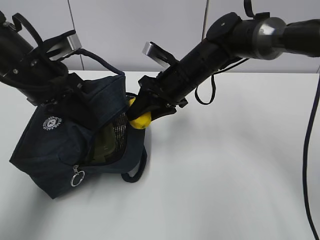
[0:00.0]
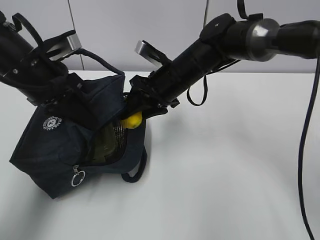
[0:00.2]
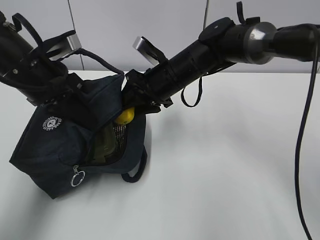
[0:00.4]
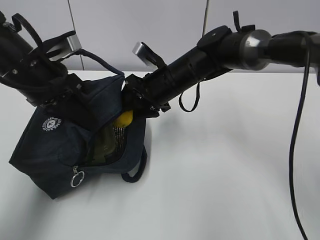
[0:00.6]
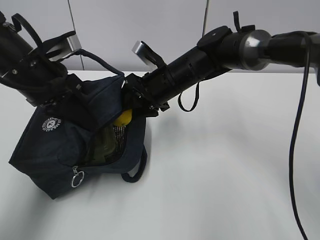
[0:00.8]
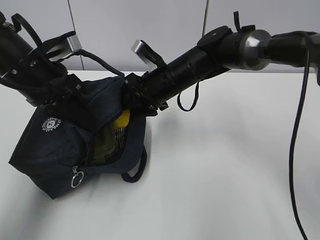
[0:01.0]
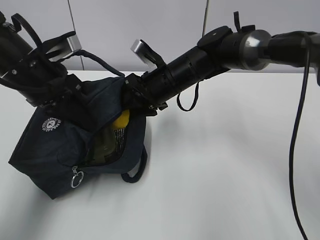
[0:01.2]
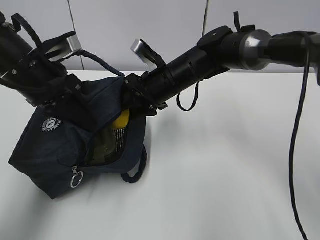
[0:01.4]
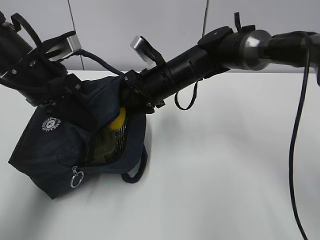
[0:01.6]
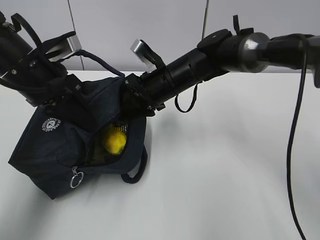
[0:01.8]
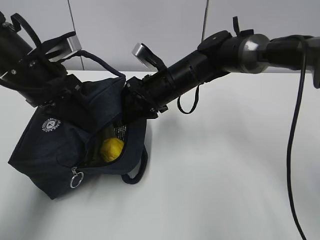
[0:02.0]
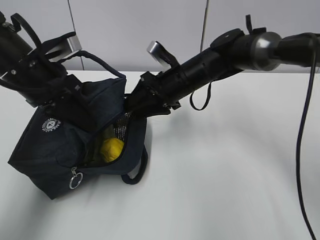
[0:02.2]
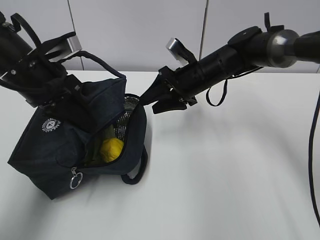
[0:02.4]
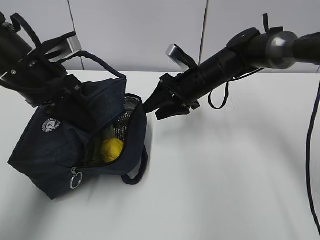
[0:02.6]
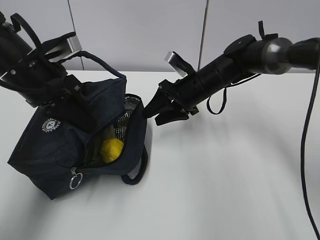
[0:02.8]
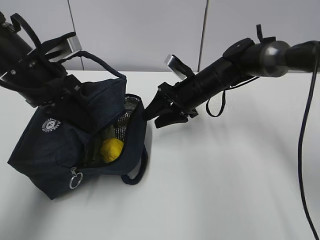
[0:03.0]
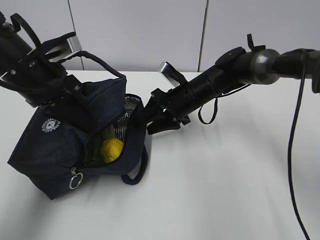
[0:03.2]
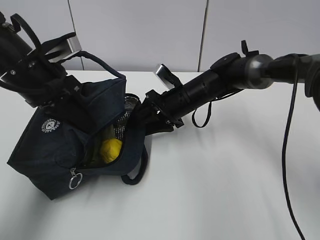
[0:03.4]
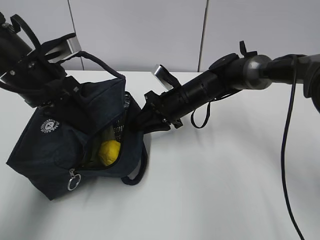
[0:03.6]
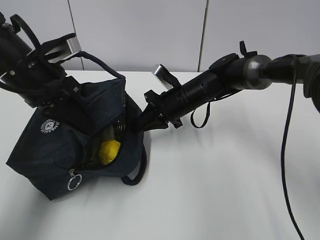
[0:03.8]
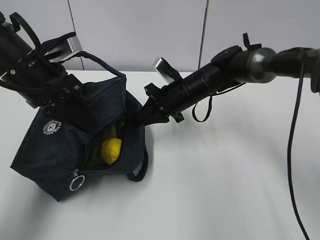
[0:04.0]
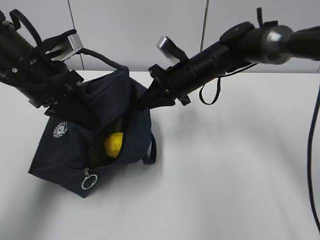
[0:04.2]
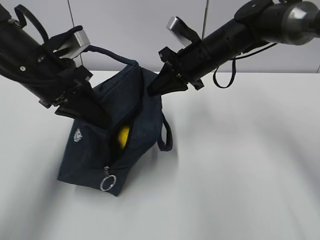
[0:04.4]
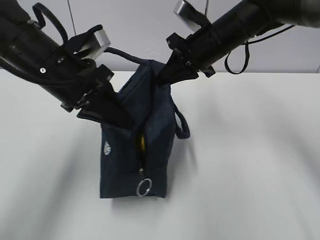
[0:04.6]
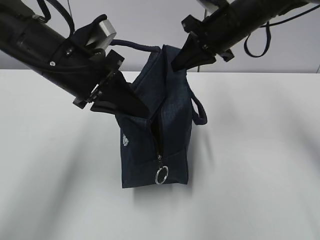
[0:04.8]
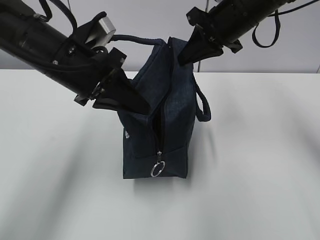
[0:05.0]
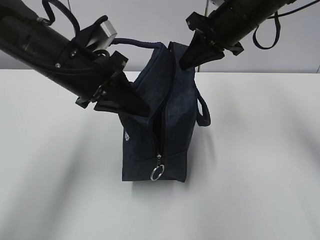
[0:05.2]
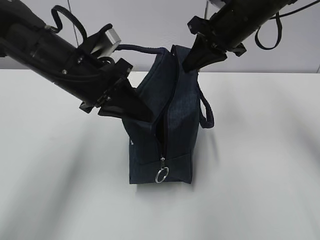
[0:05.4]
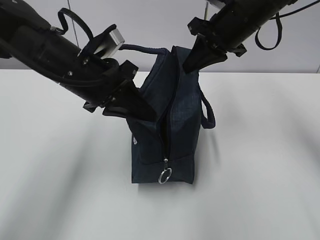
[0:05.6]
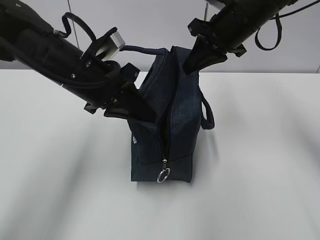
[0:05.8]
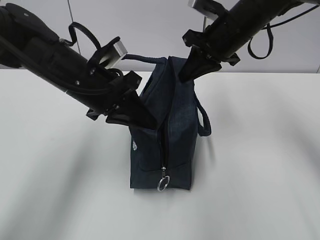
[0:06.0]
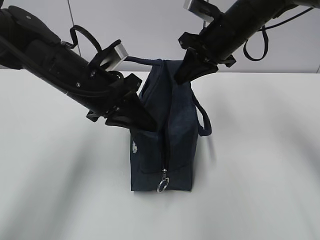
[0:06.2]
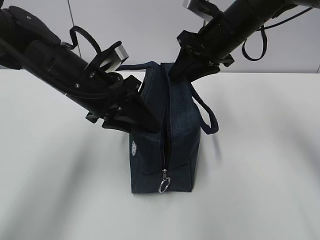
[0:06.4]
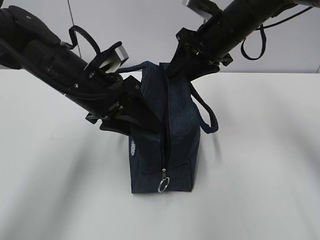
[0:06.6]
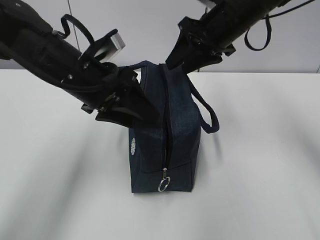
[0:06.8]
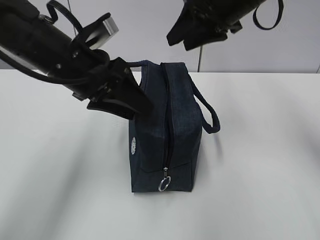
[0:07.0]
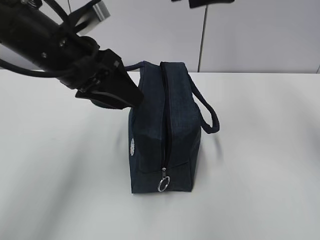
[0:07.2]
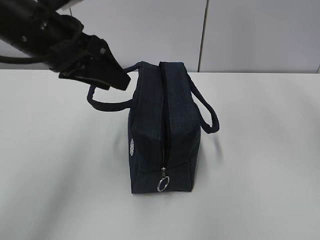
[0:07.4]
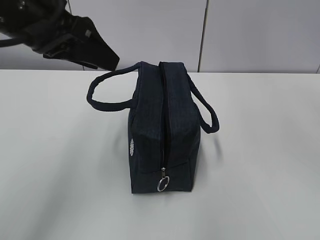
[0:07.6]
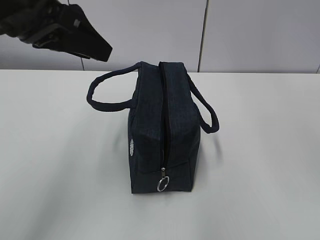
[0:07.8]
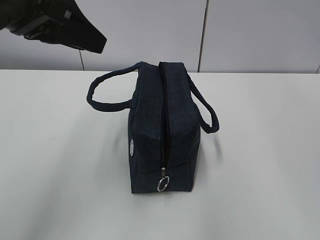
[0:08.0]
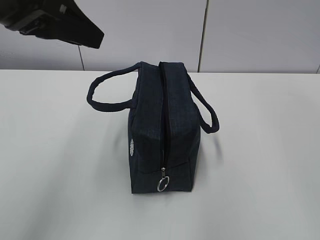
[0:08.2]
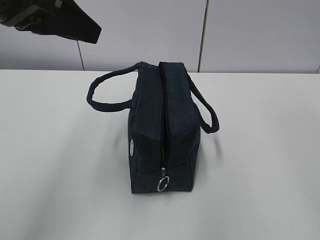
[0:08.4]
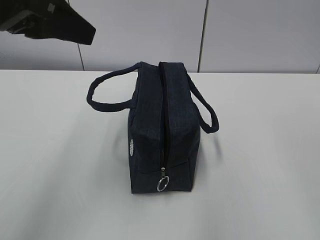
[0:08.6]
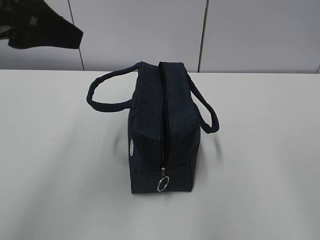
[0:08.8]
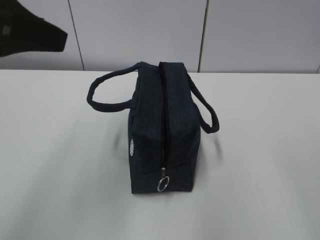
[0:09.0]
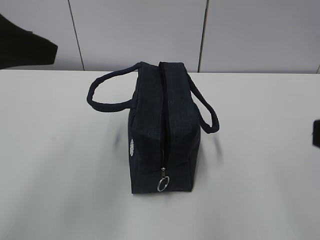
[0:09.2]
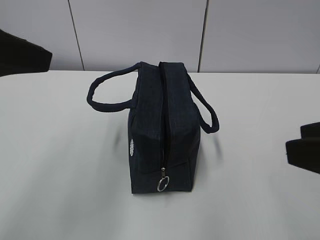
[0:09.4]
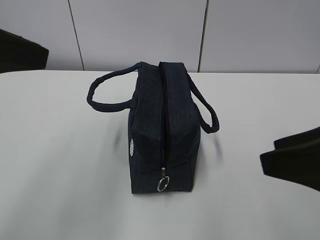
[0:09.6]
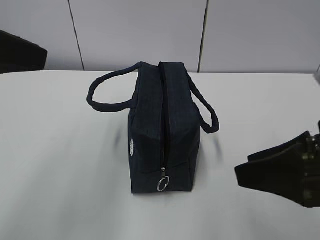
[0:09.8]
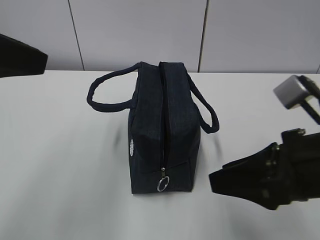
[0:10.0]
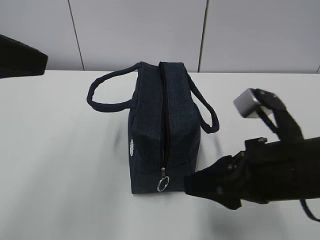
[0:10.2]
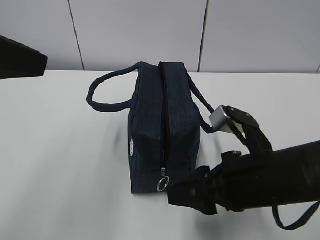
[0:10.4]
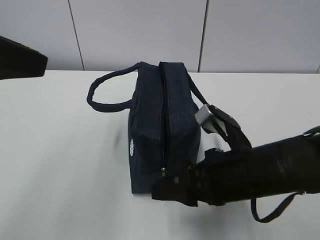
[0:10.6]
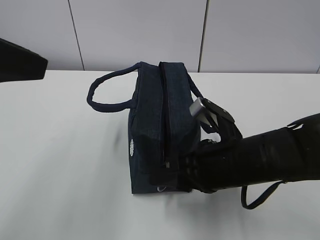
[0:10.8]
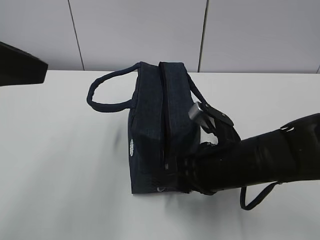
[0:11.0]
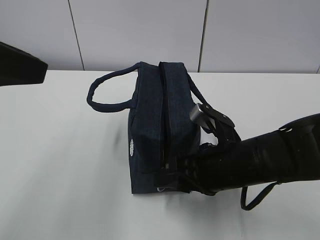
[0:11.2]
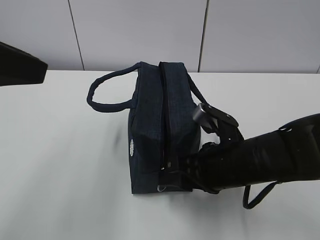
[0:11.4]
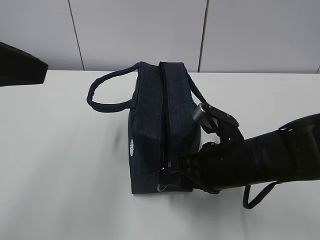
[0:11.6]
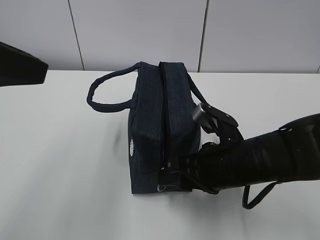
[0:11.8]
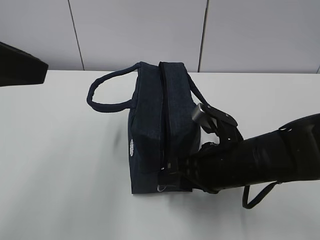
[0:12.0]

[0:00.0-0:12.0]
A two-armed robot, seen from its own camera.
Step, 0:00.0 to 0:02.2: Place the lemon into the package with the right gripper.
0:00.0 to 0:01.6: The grippers make only small movements.
0:01.6 to 0:03.0: The right gripper shifts approximately 5 cm to the right.
0:03.0 to 0:04.4: The right gripper goes approximately 10 cm upward, and closes up.
0:04.4 to 0:06.0: The left gripper goes approximately 5 cm to the right. The right gripper changes place by approximately 5 cm.
0:06.0 to 0:07.6: The right gripper shifts approximately 25 cm upward and backward, and opens its fingers. Meanwhile the left gripper heads upward, covering roughly 10 cm, and opens its fingers.
0:07.6 to 0:09.0: The right gripper heads backward and downward, covering some 30 cm, while the left gripper travels backward by roughly 10 cm.
0:09.0 to 0:10.4: The right gripper heads downward, forward and to the left, covering approximately 25 cm.
0:10.4 to 0:12.0: The right gripper ends up some 5 cm from where it was.

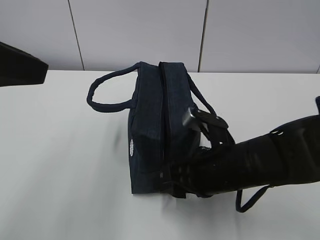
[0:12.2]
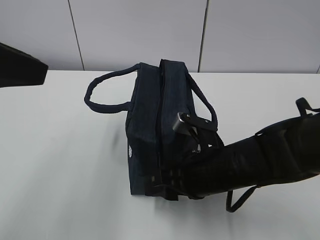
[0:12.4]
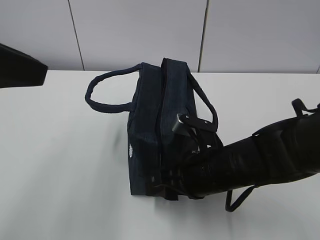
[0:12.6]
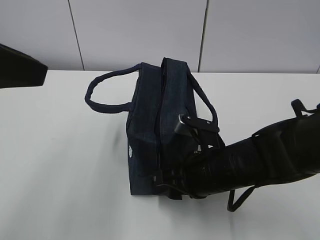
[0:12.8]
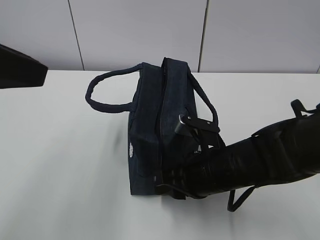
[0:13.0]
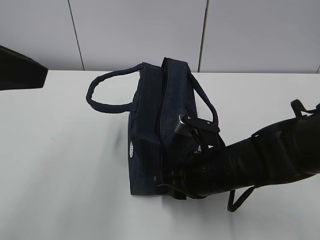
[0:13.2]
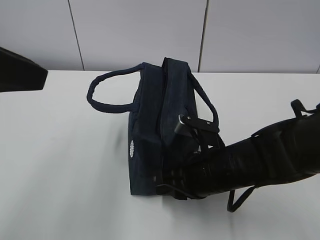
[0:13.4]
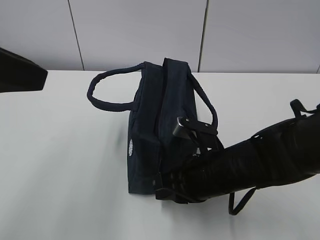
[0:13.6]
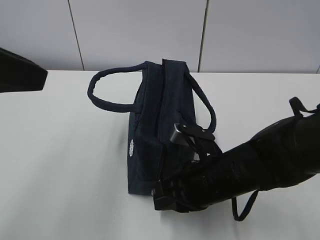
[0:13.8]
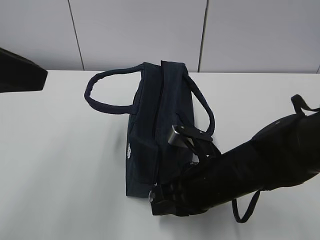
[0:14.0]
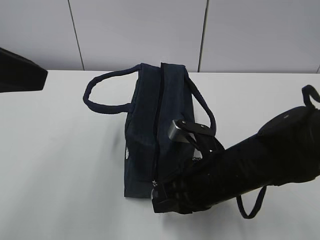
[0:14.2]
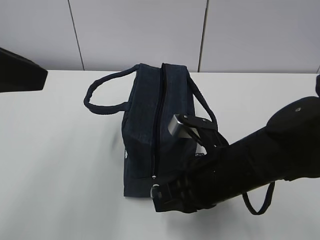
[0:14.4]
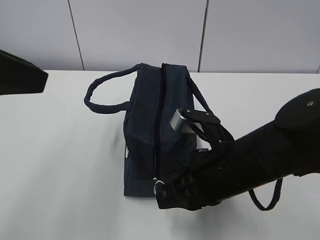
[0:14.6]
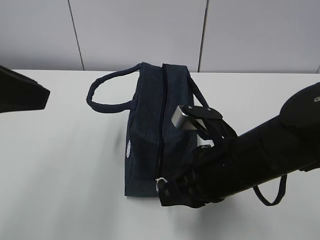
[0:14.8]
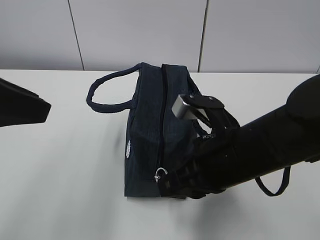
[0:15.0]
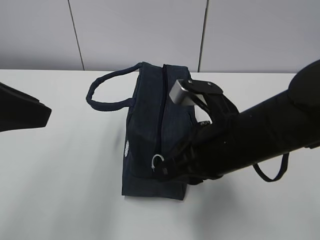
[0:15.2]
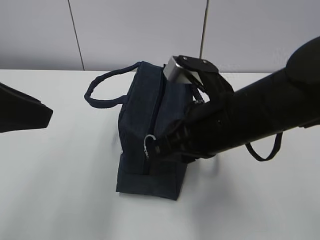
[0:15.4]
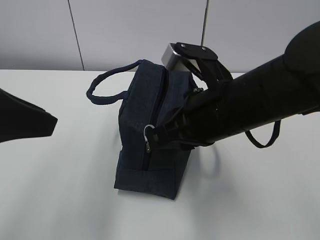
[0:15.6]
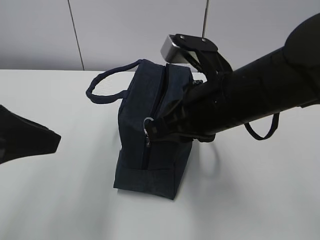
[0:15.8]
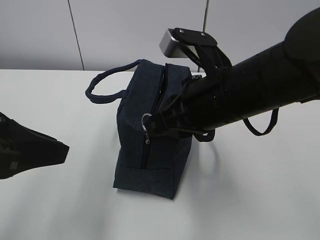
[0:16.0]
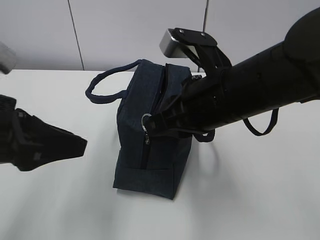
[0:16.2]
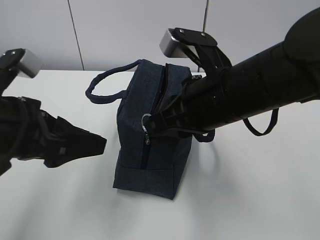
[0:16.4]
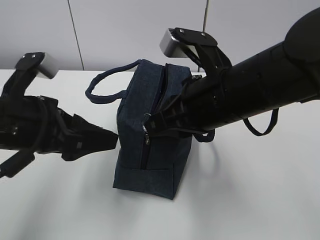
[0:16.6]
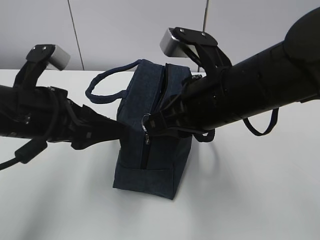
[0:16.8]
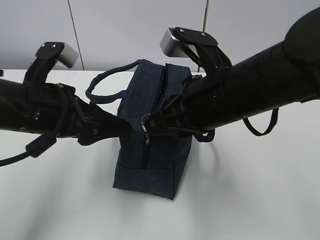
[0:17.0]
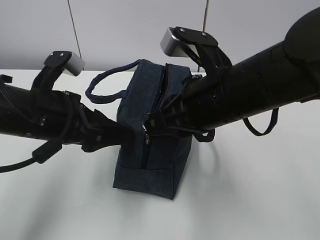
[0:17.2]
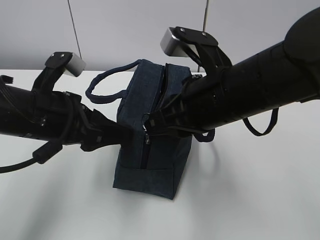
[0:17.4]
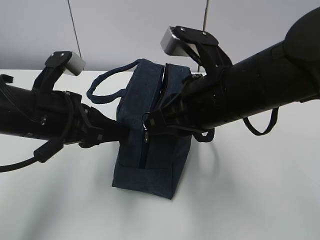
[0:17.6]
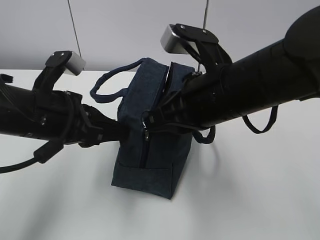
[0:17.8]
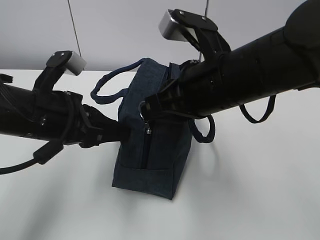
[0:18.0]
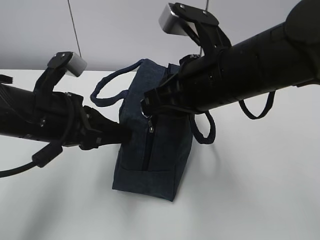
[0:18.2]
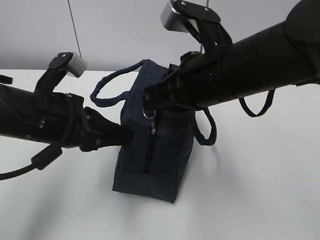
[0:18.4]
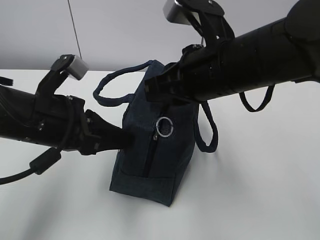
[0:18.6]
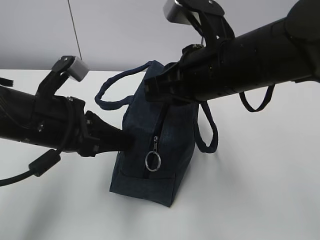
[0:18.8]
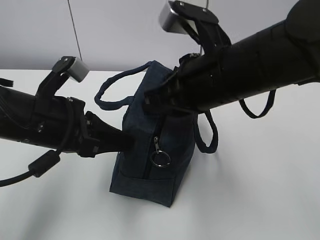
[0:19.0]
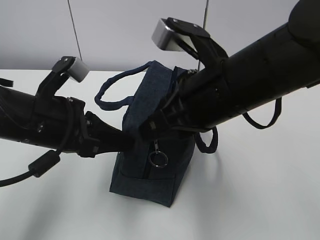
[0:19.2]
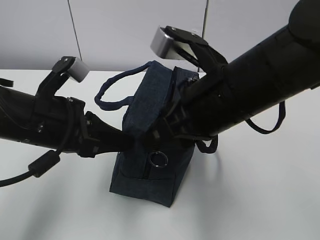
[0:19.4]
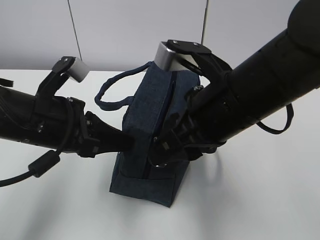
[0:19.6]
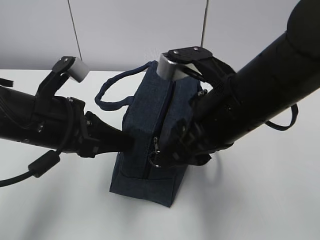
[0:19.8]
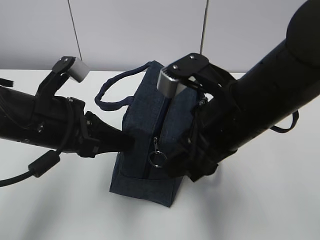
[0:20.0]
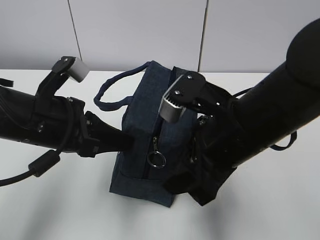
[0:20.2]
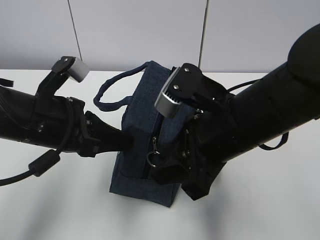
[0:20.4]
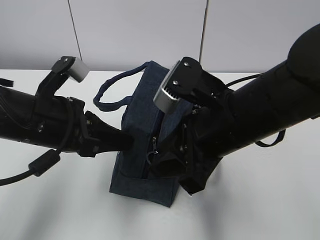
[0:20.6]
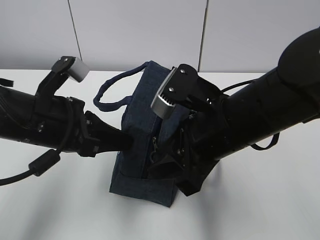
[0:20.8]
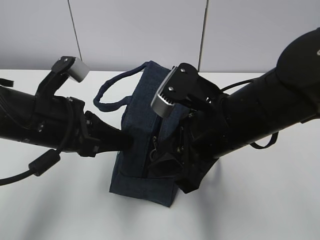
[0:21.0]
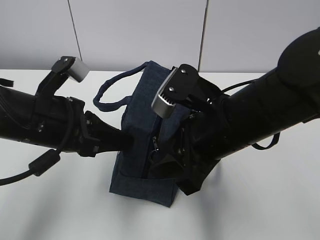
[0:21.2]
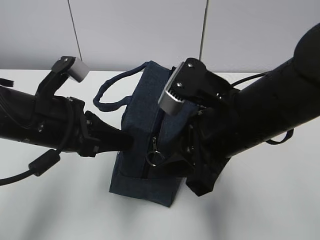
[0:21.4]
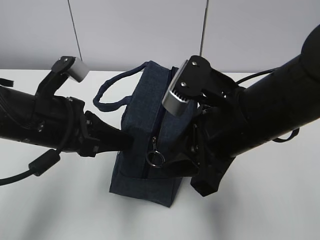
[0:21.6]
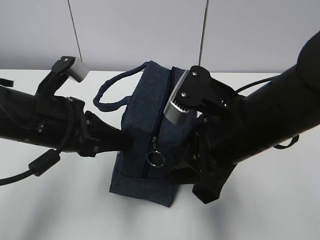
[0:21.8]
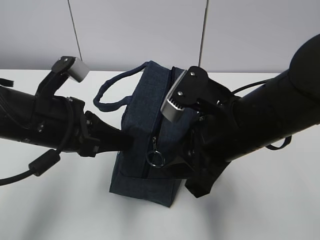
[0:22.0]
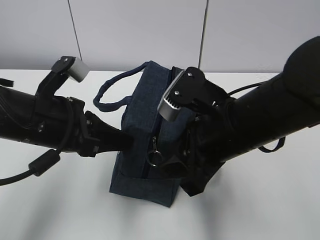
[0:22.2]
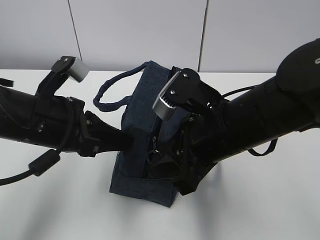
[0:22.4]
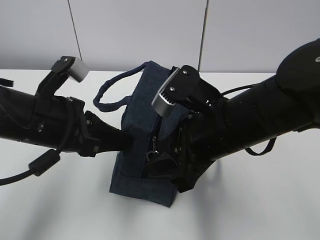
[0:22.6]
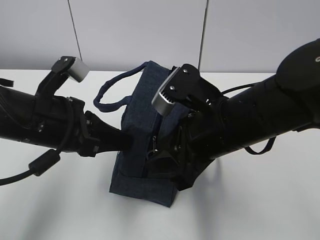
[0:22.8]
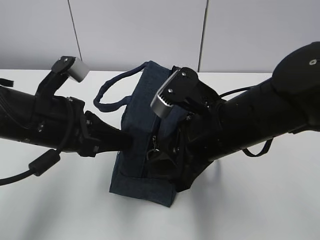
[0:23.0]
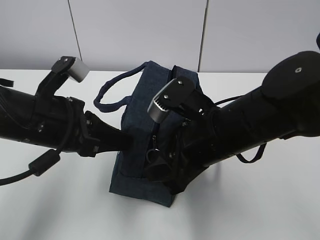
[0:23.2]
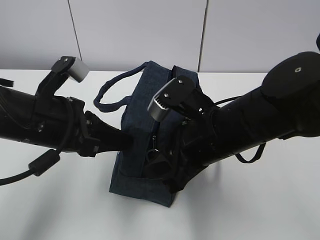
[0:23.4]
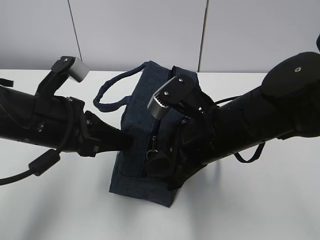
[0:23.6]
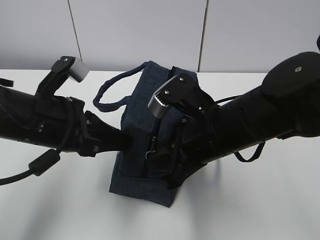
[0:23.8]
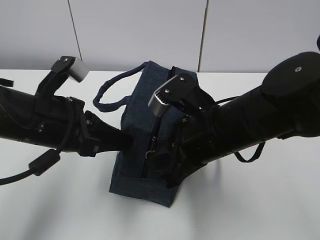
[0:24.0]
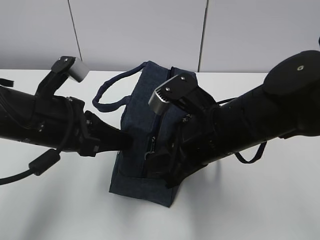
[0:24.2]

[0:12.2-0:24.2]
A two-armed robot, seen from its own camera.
0:12.2 to 0:13.8: The right gripper closes its fingers.
0:13.8 to 0:15.2: The right gripper goes about 10 cm upward.
0:15.2 to 0:16.6: The left gripper shifts roughly 10 cm downward and forward, and opens up.
0:16.6 to 0:18.2: The left gripper closes.
0:18.2 to 0:19.8: The right gripper opens up.
0:21.2 to 0:22.6: There are only small adjustments of the grippers.
0:22.6 to 0:24.2: The right gripper closes.
